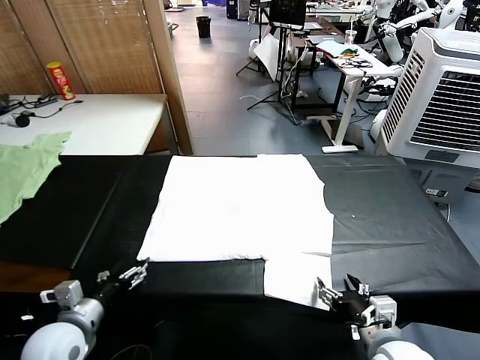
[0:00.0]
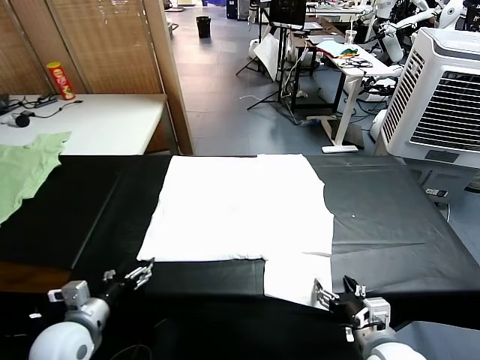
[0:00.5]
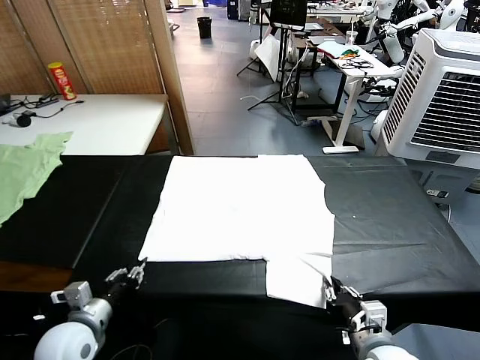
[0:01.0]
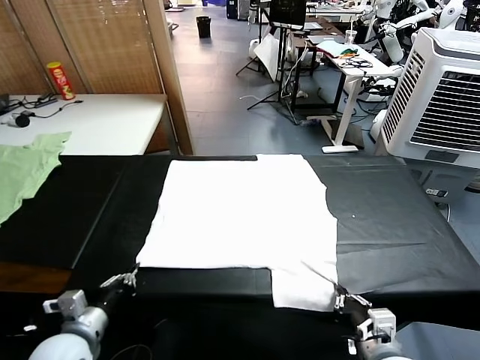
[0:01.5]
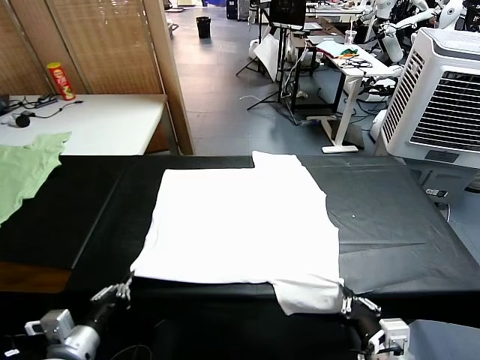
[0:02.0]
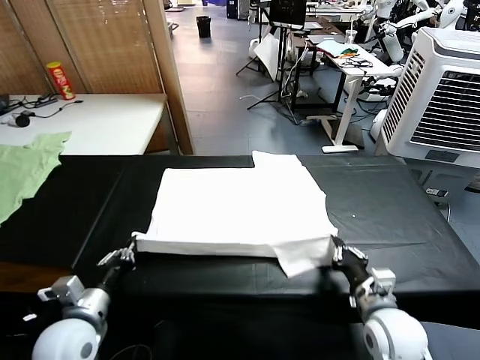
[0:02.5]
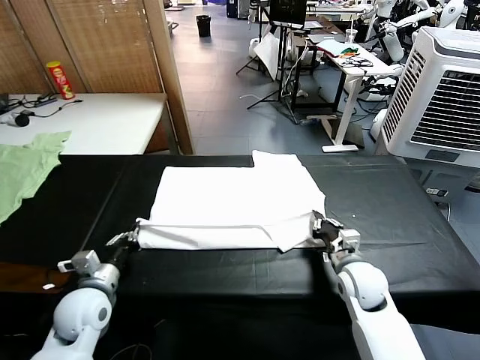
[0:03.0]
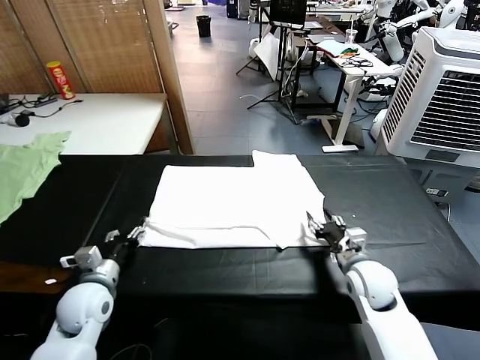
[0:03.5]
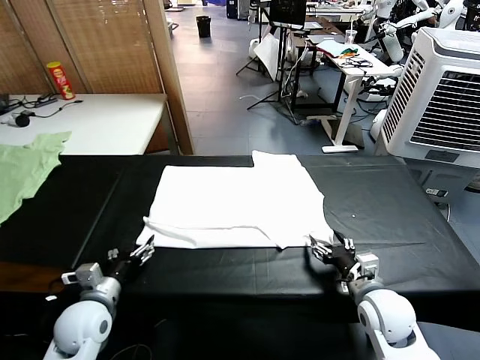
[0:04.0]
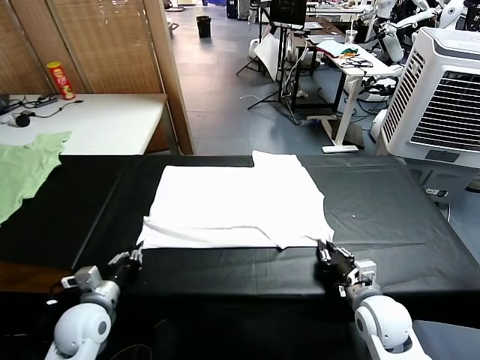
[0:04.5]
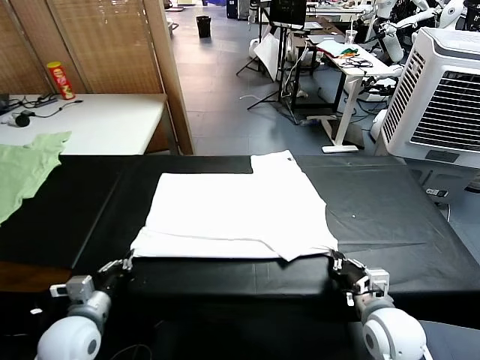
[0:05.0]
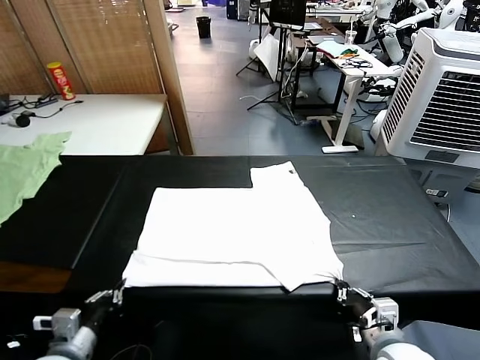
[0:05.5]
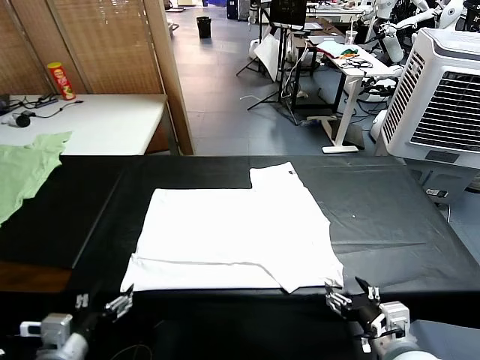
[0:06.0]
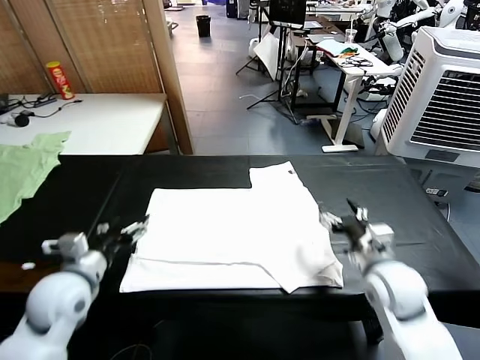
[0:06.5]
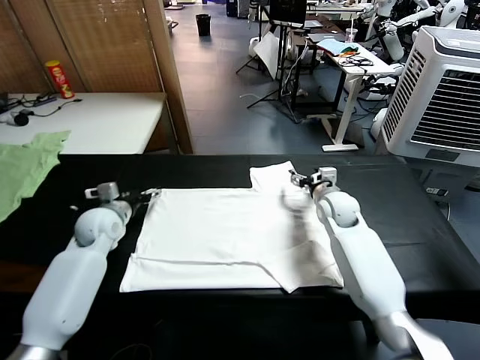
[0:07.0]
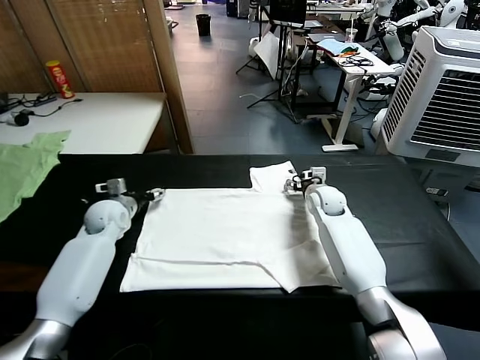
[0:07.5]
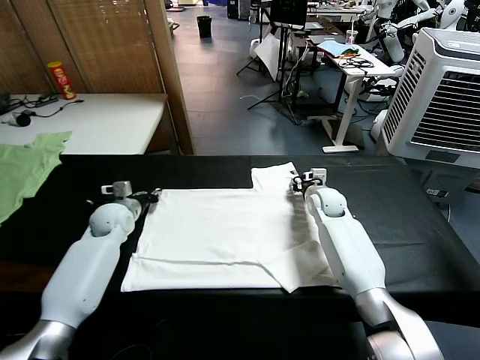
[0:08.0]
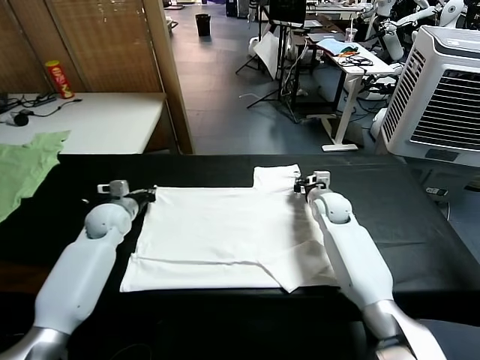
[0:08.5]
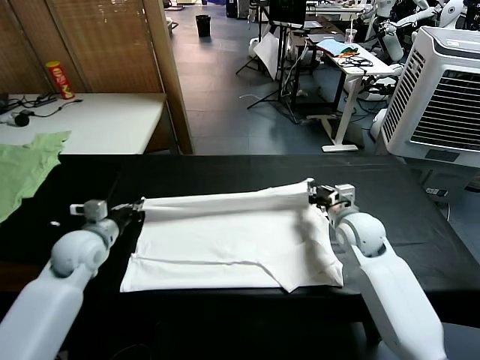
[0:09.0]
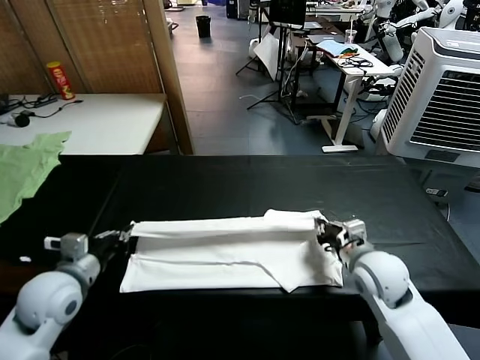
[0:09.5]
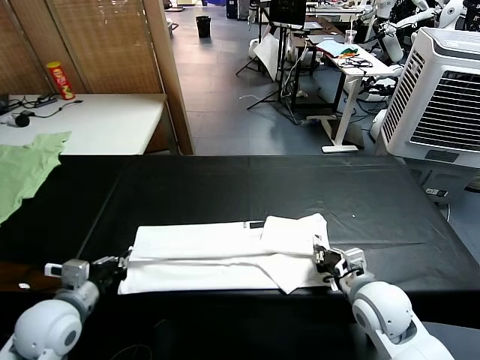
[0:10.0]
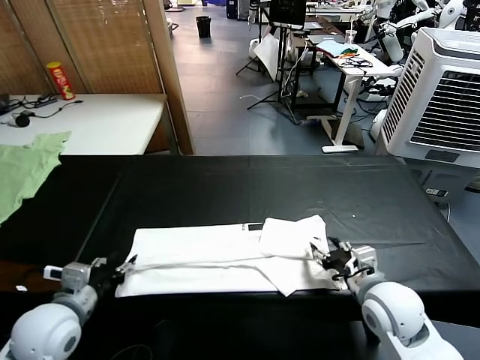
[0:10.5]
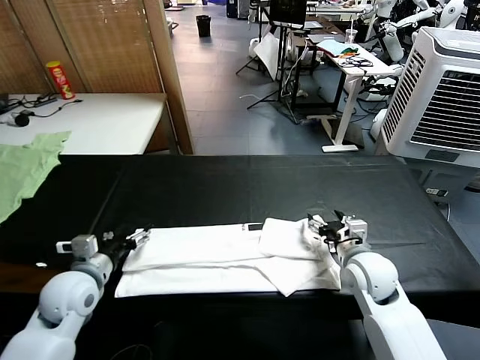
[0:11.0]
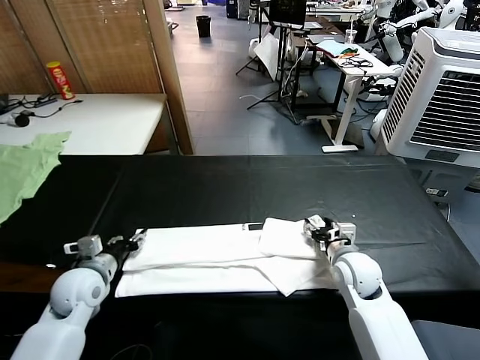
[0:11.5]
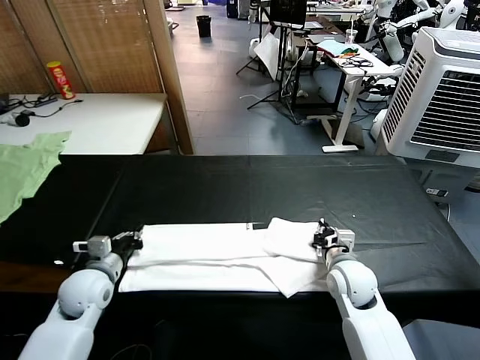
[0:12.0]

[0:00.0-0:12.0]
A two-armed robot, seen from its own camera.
Task of the whole recording: fold and organize the clothes.
Step, 0:00.0 to 0:01.0: use both grippers simultaneously to clamp the lower edge of the clothing fabric.
Step, 0:01.5 to 0:03.5: use both grippers to drag the lower edge of the fabric forward and fold it over the upper edge.
Step, 0:04.0 to 0:06.0: Drag the clothes downward with both gripper.
Step, 0:06.5 to 0:08.0: use both grippers simultaneously to clamp the upper edge of the clothing fabric.
Step, 0:08.5 to 0:10.5: use both grippers to drag the upper edge of the fabric backward and fold it over the lower edge.
0:02.0 to 0:04.0: The left gripper travels forward and downward by about 10 cm, and opens up, while the right gripper moves forward, roughly 10 cm, and opens.
0:04.0 to 0:06.0: The grippers both shift backward and upward by approximately 15 cm. The left gripper closes, then reopens, while the right gripper closes and opens again.
0:06.0 to 0:08.0: The grippers both shift forward by approximately 40 cm. The left gripper closes its fingers. Meanwhile the right gripper closes up.
0:08.0 to 0:10.0: The grippers both shift backward by some 25 cm.
0:10.0 to 0:12.0: Both grippers move forward and downward, some 10 cm. The right gripper opens, then closes again. The left gripper opens and closes again.

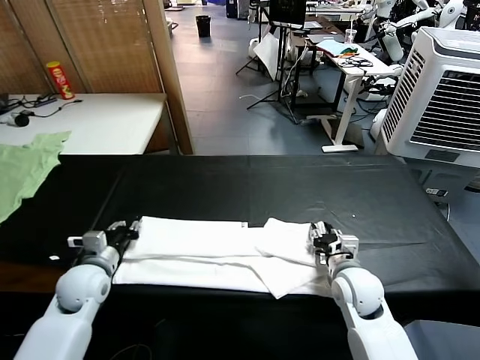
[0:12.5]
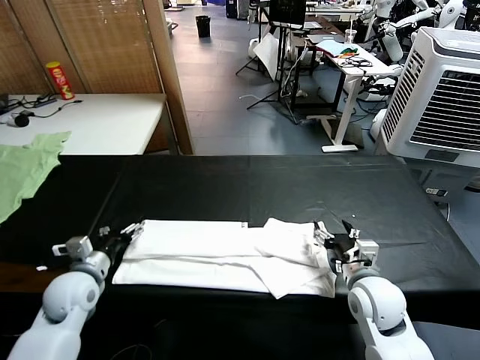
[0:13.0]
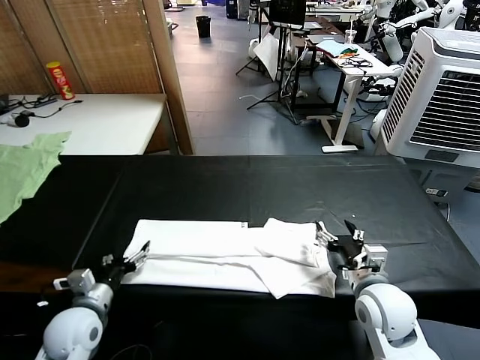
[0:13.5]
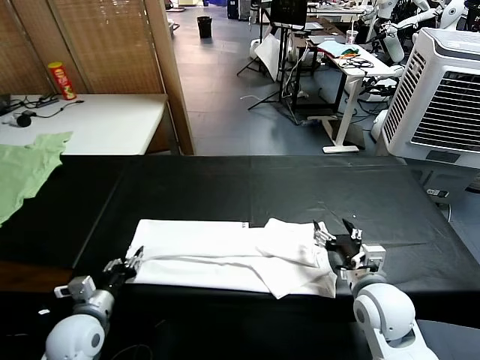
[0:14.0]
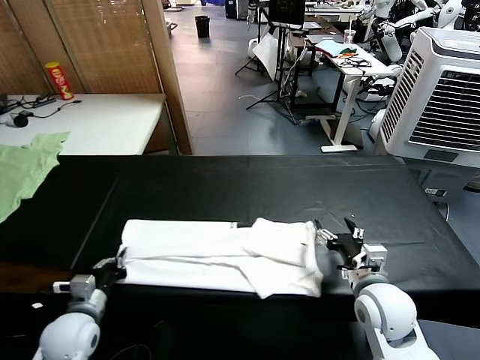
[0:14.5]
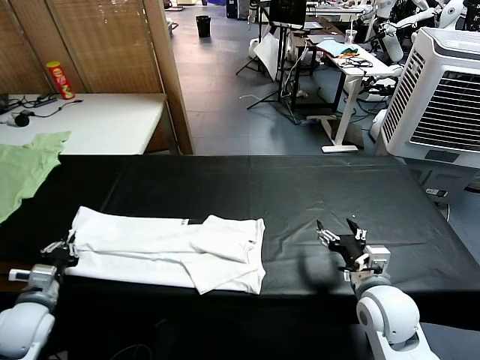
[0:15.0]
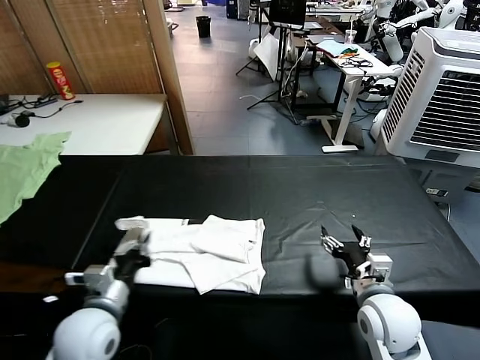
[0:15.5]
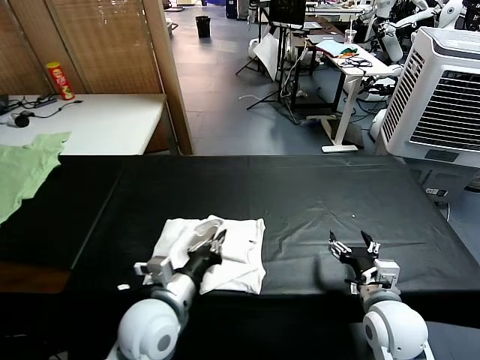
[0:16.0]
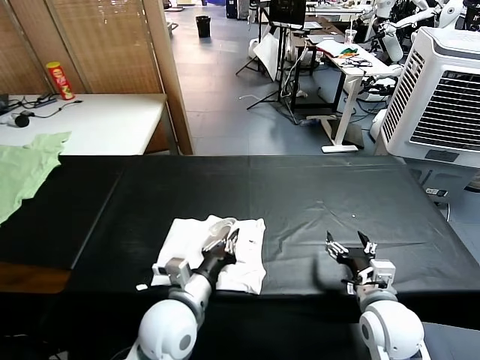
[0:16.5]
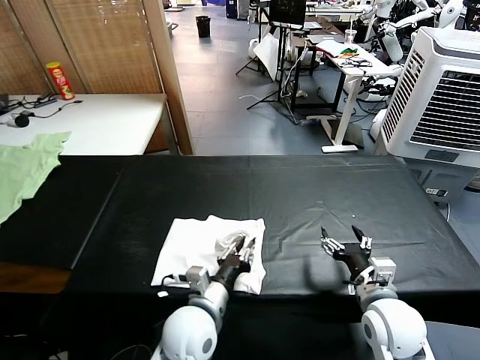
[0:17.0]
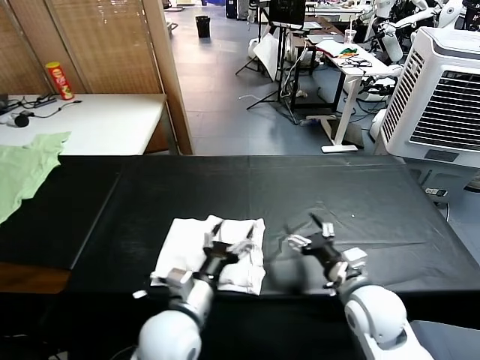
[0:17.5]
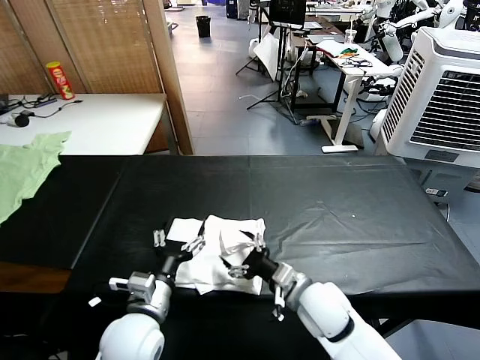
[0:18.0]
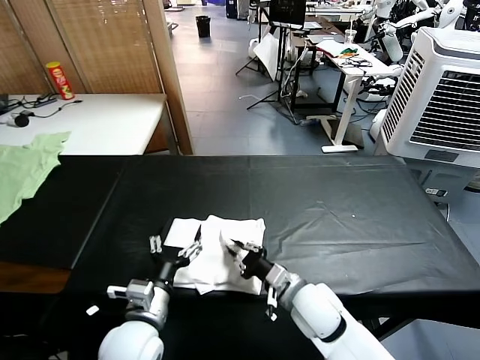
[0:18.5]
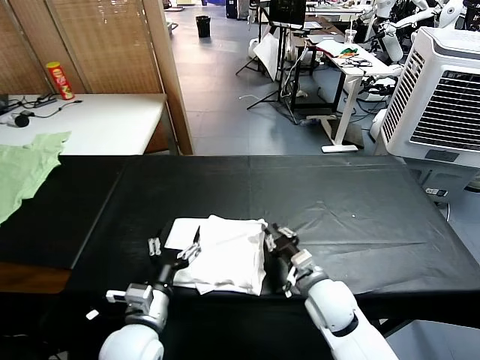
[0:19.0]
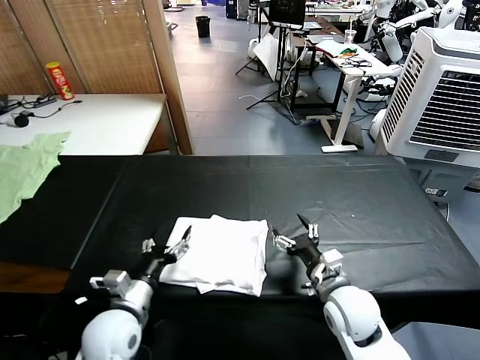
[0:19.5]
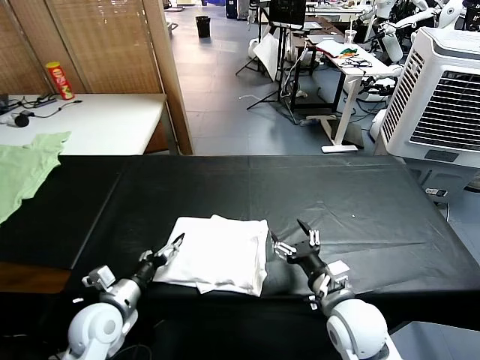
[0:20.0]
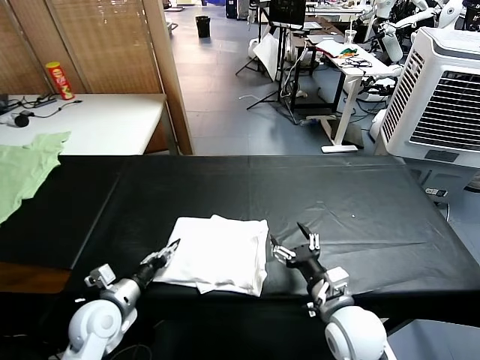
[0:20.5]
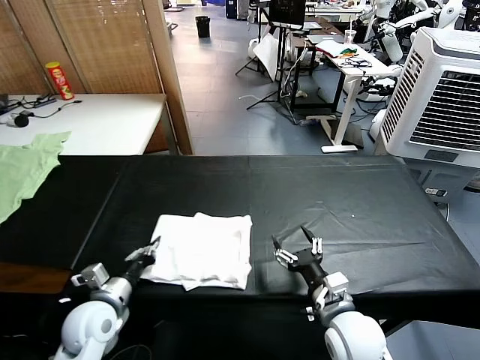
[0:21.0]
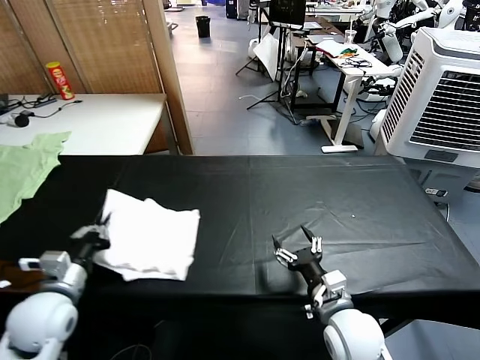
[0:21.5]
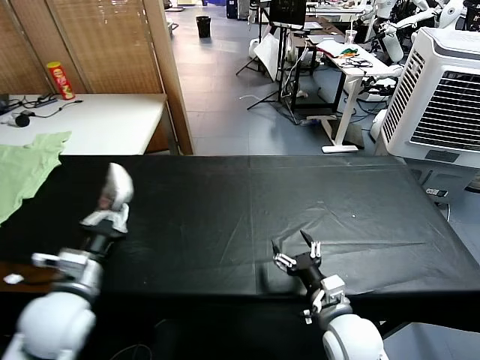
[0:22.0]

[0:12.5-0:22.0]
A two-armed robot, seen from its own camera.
Task of the whole recording: fold and organize the clothes.
Step, 0:14.5 to 0:17.0: use the left gripper to drag the left edge of the fabric to the left and folds it over the right edge.
0:12.5 to 0:14.5: The right gripper shifts approximately 5 cm backward, and opens; the left gripper travels backward by some 10 cm, and opens, then closes again.
0:14.5 to 0:16.5: The left gripper is displaced to the right by some 20 cm.
0:16.5 to 0:18.0: The left gripper travels to the left by roughly 5 cm, and opens up. Meanwhile the right gripper is displaced to the left by about 10 cm.
0:18.0 to 0:20.0: The left gripper goes roughly 10 cm to the left and downward; the right gripper shifts about 5 cm to the right, and closes, then opens again.
0:20.0 to 0:22.0: The left gripper moves upward, about 15 cm, and closes.

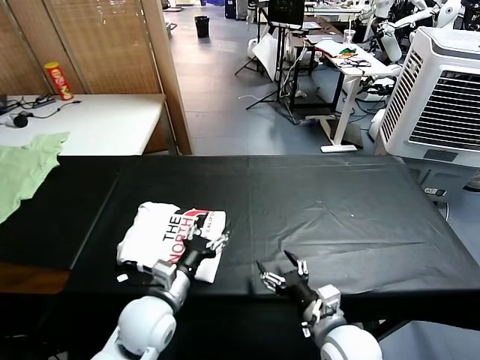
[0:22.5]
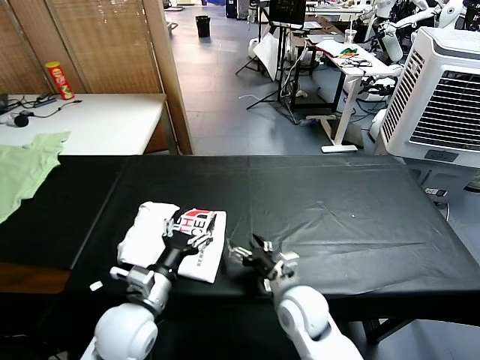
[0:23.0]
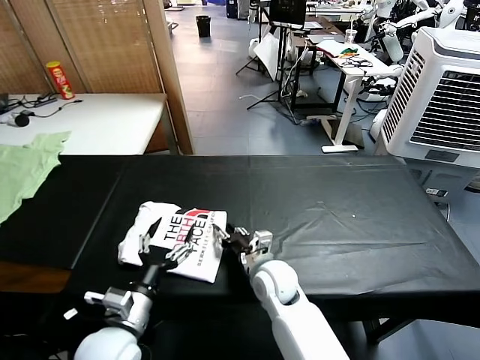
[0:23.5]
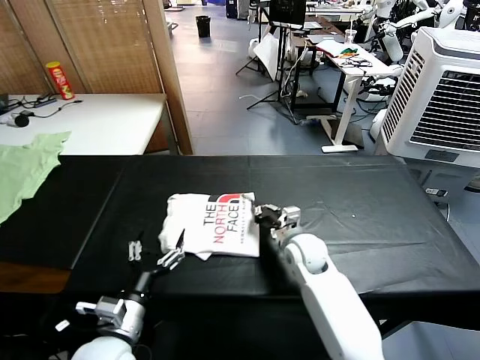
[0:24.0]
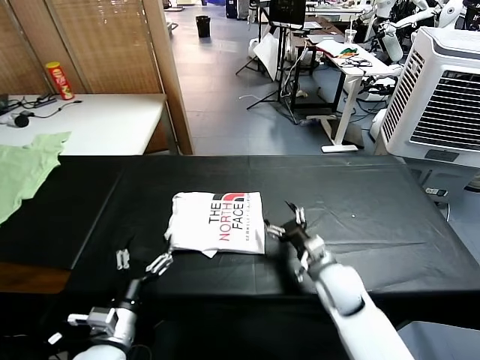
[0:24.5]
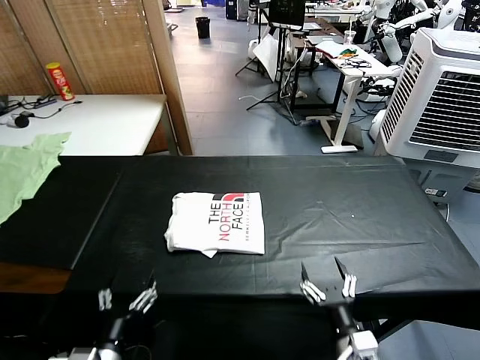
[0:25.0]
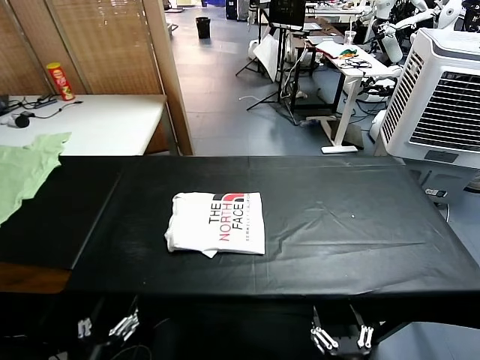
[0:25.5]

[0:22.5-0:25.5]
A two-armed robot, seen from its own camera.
Task of the whole recording: fold and organize the clothes.
Step, 0:22.5 to 0:24.0: Drag the clothes to the center of the table.
0:22.5 to 0:24.0: The right gripper is displaced forward by some 20 cm, and closes up. Meanwhile the left gripper goes roughly 10 cm backward and to the left, and opens its fingers.
0:24.0 to 0:25.5: The left gripper heads backward, covering some 10 cm, while the right gripper travels backward by approximately 35 cm, and opens its fingers.
